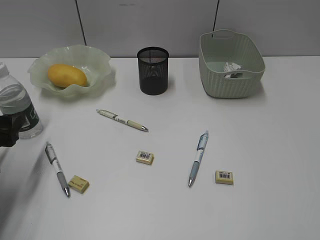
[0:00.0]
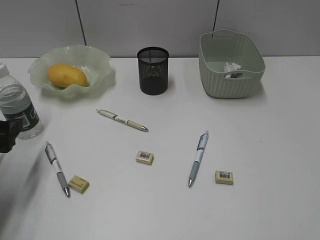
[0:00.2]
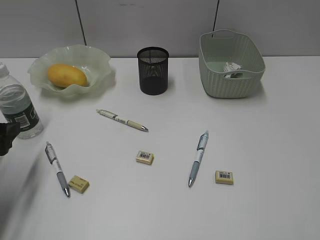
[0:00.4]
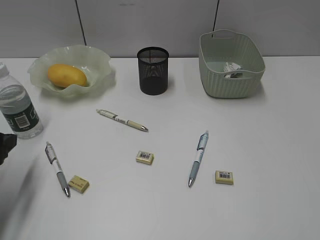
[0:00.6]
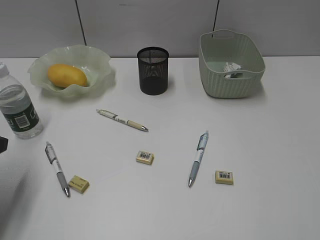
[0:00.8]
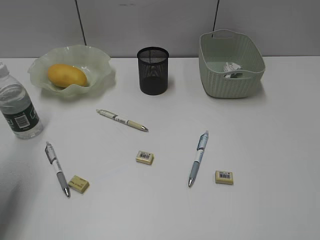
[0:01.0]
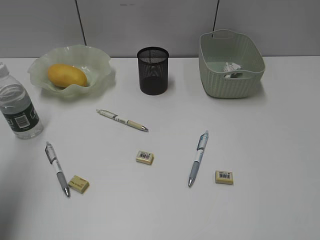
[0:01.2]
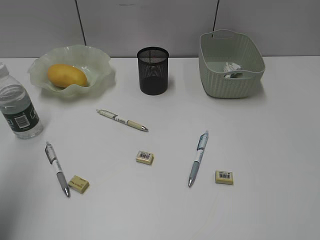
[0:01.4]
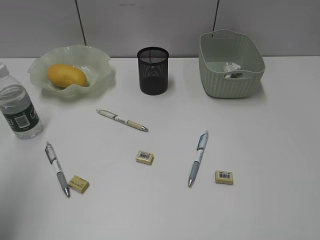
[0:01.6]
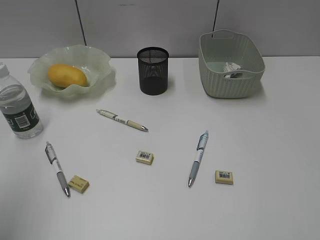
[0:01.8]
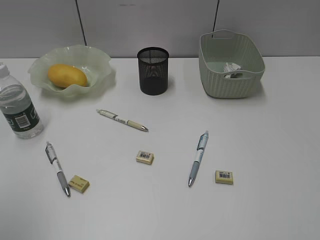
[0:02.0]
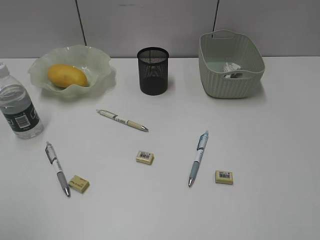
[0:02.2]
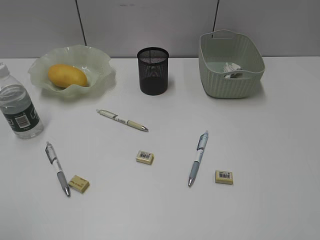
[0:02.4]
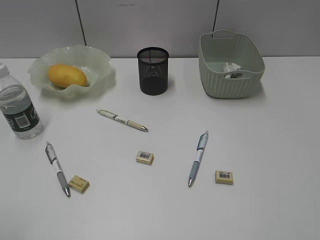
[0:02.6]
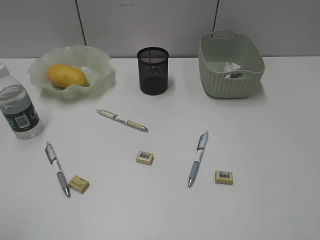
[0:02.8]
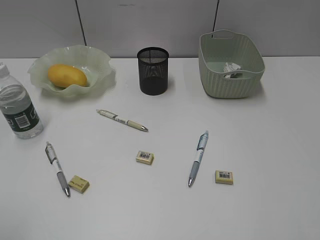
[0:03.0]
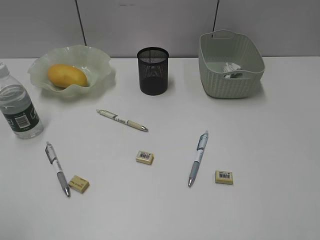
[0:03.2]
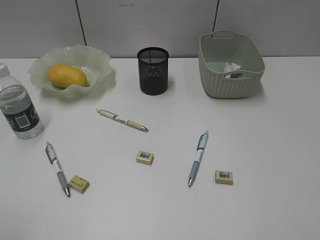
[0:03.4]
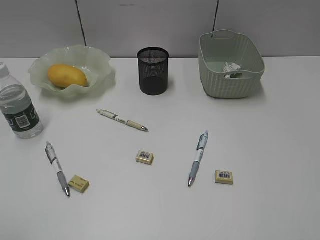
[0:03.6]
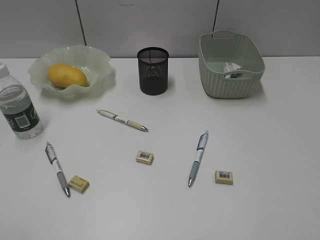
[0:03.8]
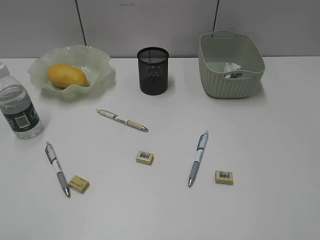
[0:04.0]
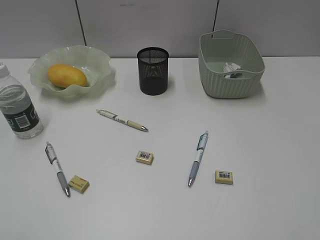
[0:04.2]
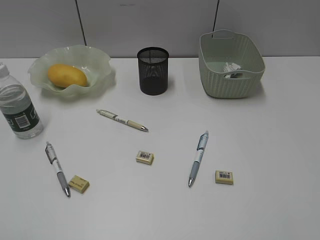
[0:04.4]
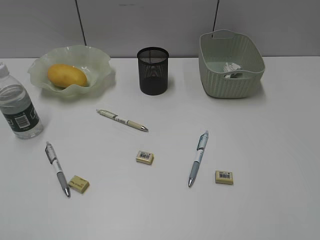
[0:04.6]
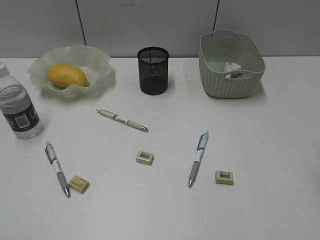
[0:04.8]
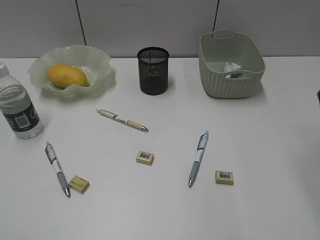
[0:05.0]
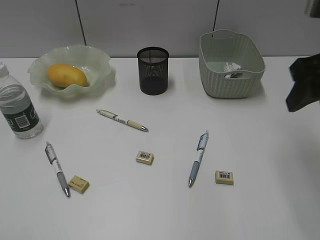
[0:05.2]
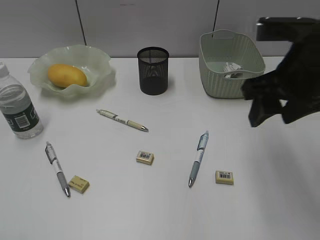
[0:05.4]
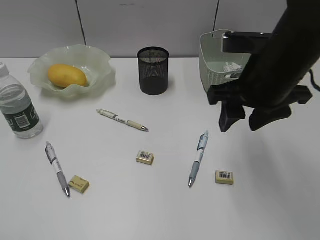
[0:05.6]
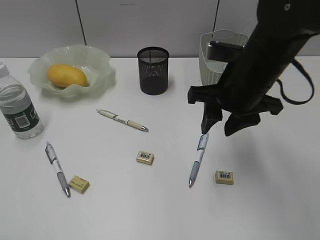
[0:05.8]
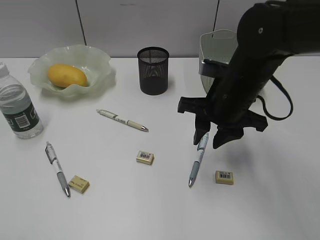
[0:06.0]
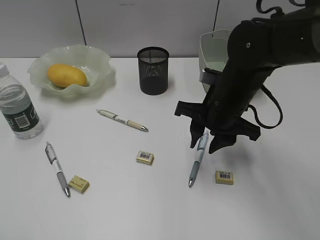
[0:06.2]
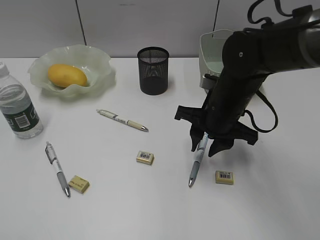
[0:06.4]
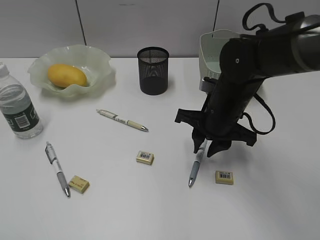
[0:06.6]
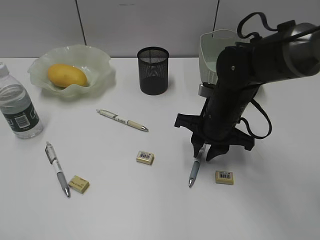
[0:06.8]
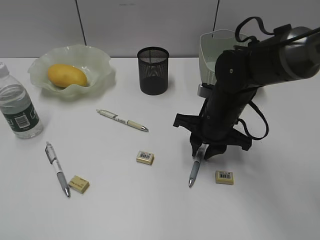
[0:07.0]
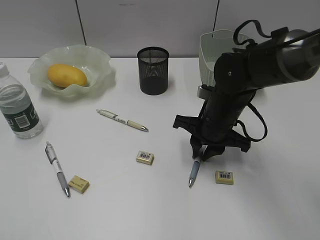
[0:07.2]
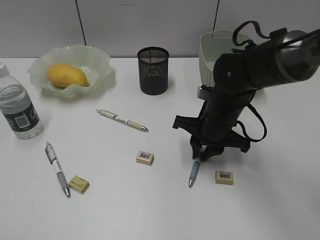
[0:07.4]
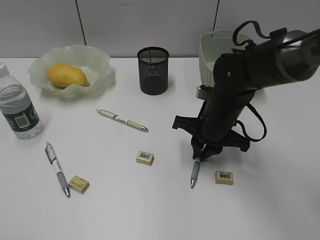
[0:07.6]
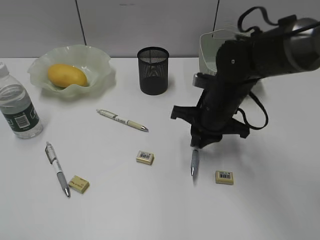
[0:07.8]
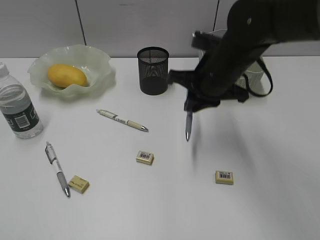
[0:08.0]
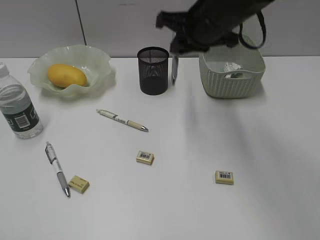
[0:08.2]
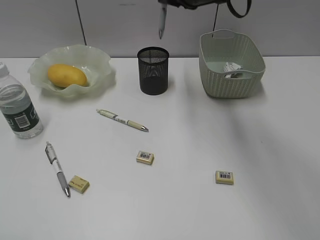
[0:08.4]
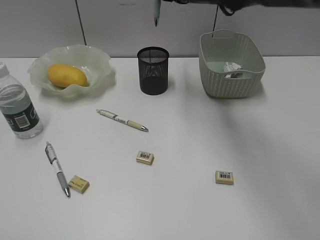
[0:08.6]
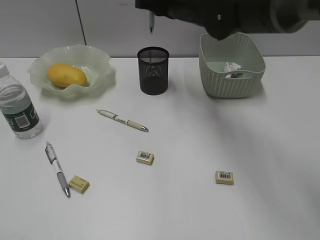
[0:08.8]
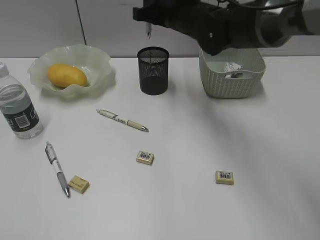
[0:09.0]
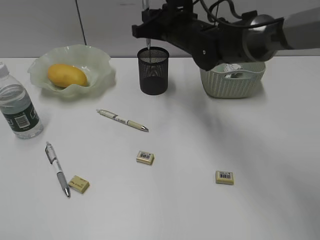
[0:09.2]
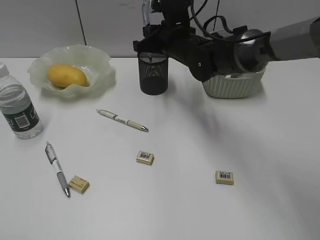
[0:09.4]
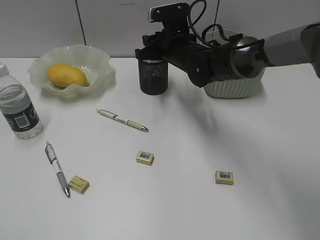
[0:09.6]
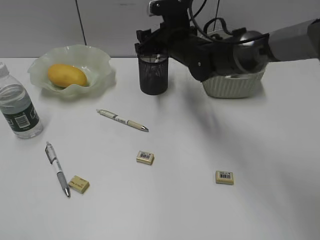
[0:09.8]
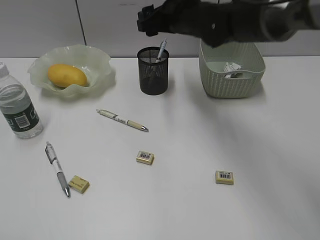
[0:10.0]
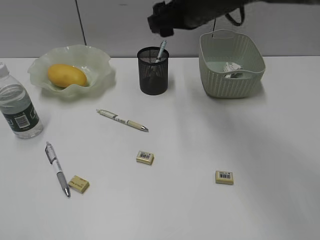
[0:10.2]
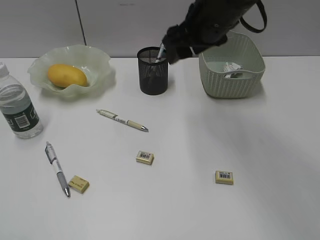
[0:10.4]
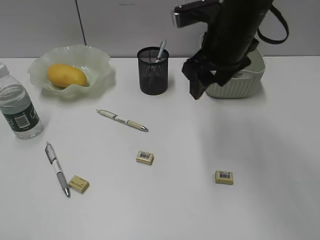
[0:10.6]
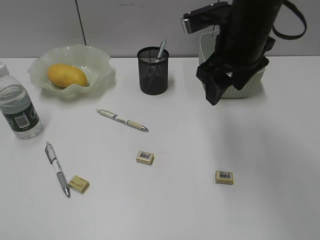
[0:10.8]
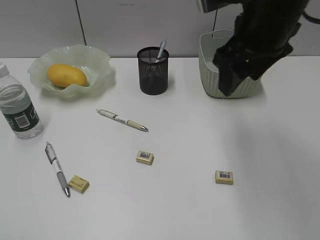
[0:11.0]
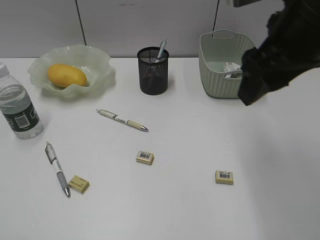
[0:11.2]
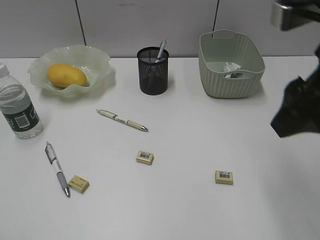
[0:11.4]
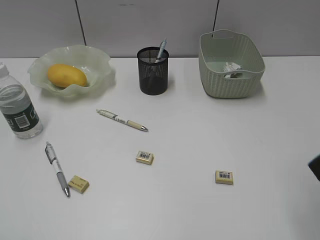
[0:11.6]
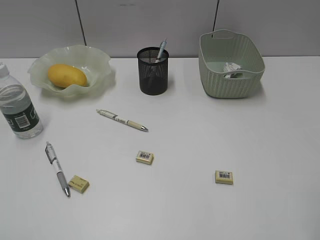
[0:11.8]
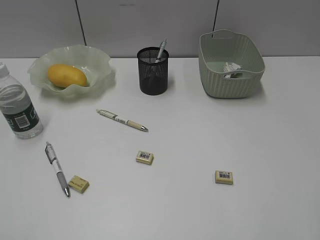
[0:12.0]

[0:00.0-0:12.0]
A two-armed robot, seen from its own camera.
Step, 0:00.2 to 0:07.4: Grasp the blue pen with right gripper.
Step, 0:07.6 to 0:09.8: Place the blue pen in pen holder with right gripper.
0:00.0 to 0:01.6: The left gripper travels upward by approximately 15 cm.
0:01.6 to 0:03.0: The left gripper goes about 15 cm backward.
0:04.4 to 0:06.0: The right gripper goes some 35 cm forward, to the left and downward, and closes its fingers.
0:06.0 to 0:07.6: The right gripper heads downward, covering roughly 10 cm, and closes up.
0:07.6 to 0:09.0: The right gripper shifts about 20 cm upward, forward and to the left.
0:09.0 to 0:10.4: The right gripper goes roughly 5 cm backward, goes downward and returns, roughly 10 cm each way, and opens up.
0:10.4 to 0:12.0: The right gripper shifts approximately 35 cm backward and to the right.

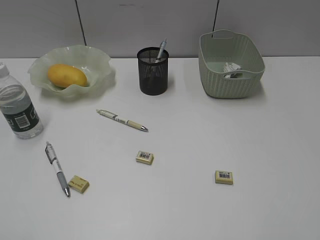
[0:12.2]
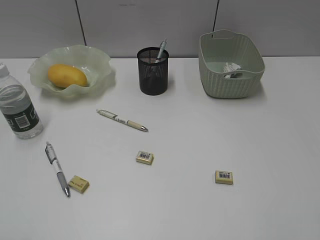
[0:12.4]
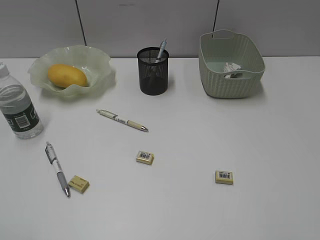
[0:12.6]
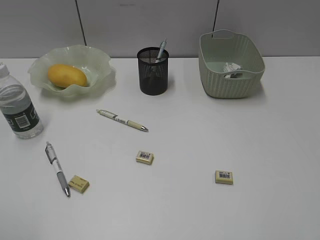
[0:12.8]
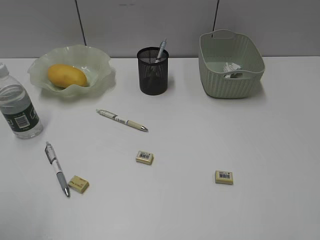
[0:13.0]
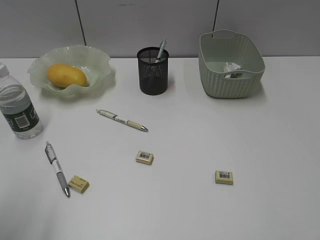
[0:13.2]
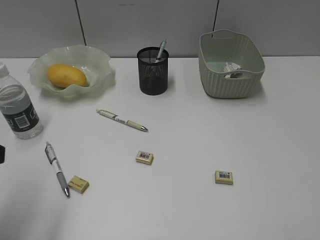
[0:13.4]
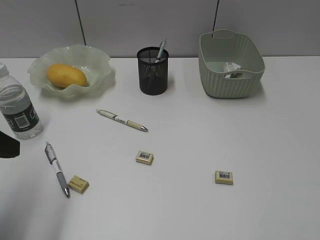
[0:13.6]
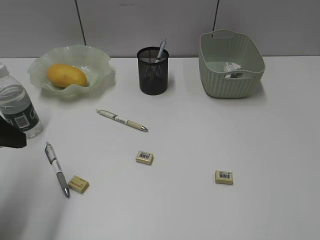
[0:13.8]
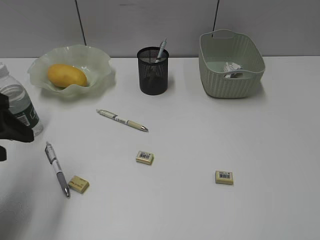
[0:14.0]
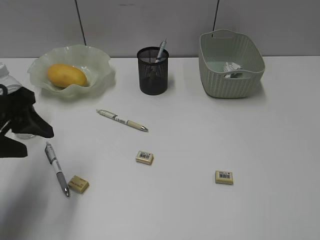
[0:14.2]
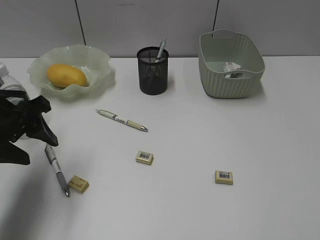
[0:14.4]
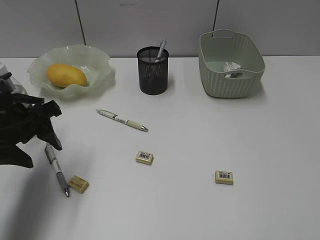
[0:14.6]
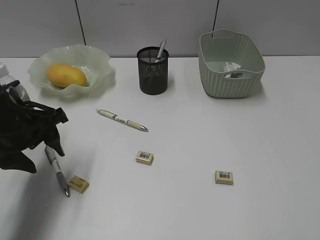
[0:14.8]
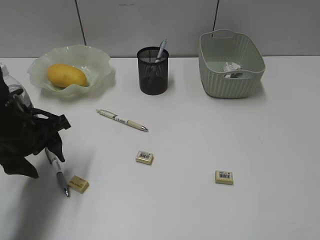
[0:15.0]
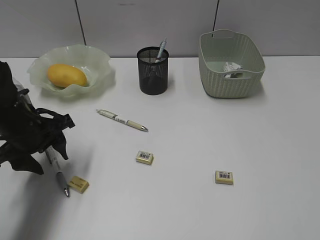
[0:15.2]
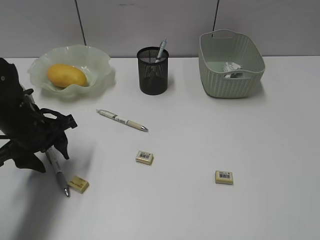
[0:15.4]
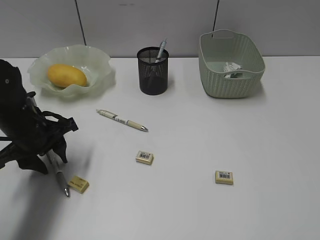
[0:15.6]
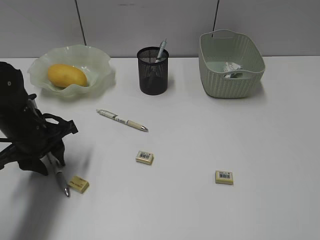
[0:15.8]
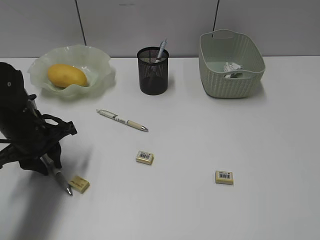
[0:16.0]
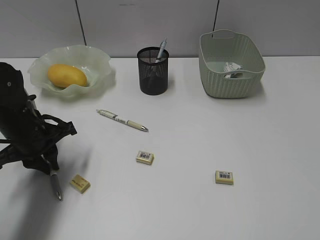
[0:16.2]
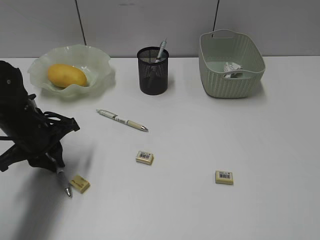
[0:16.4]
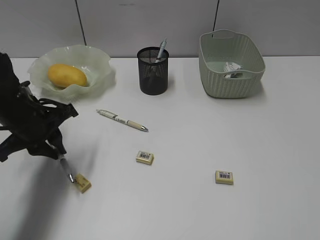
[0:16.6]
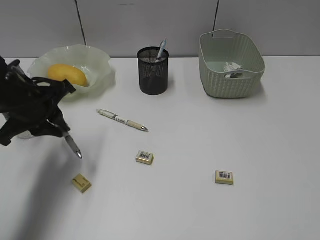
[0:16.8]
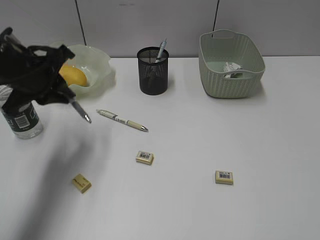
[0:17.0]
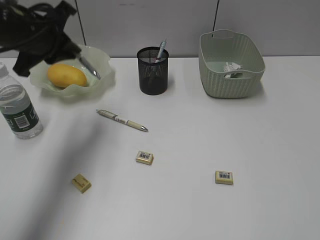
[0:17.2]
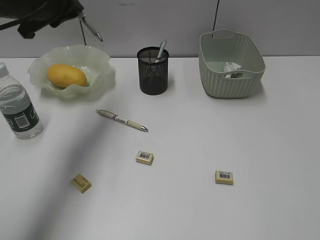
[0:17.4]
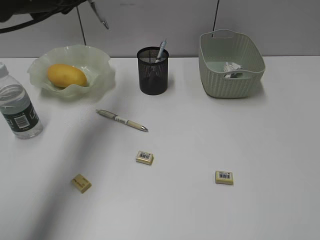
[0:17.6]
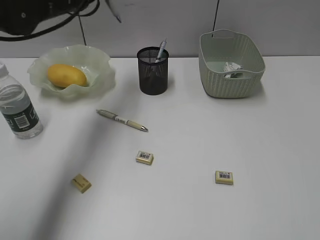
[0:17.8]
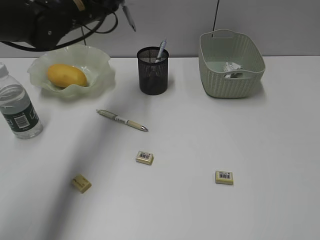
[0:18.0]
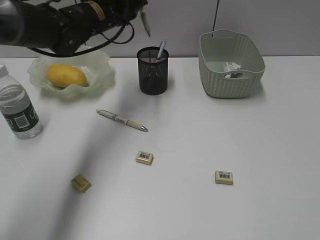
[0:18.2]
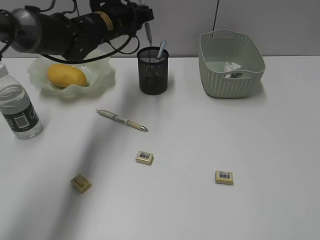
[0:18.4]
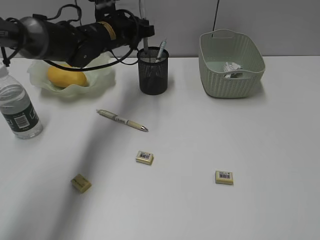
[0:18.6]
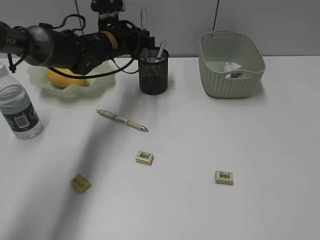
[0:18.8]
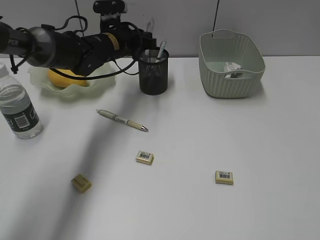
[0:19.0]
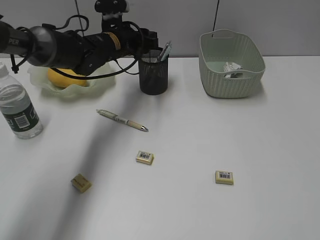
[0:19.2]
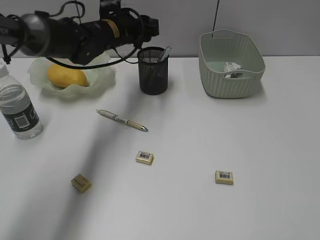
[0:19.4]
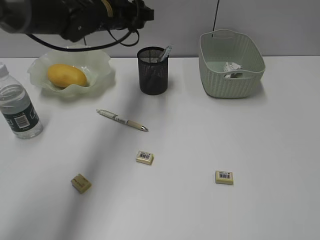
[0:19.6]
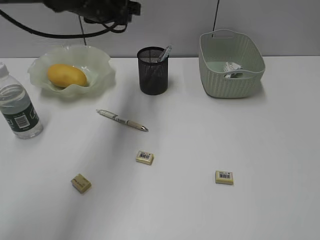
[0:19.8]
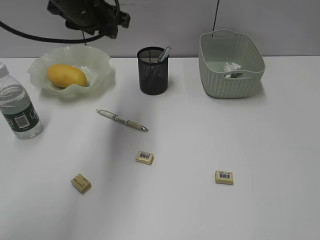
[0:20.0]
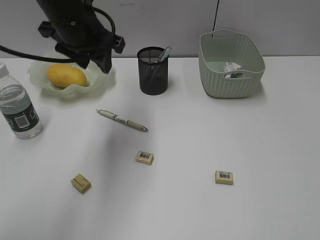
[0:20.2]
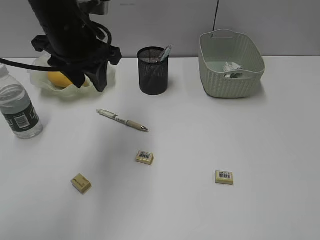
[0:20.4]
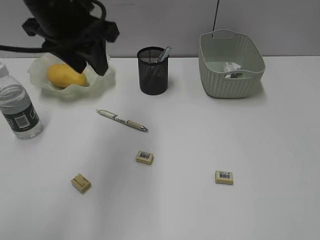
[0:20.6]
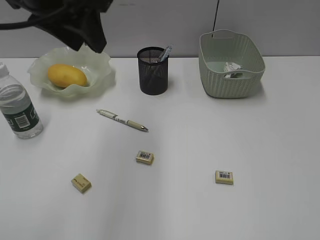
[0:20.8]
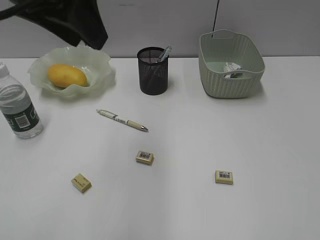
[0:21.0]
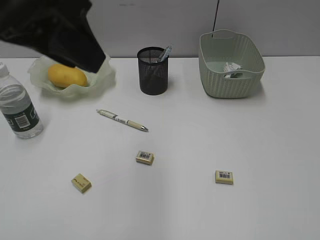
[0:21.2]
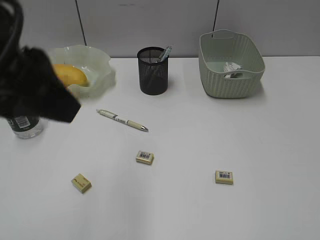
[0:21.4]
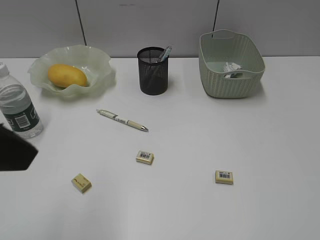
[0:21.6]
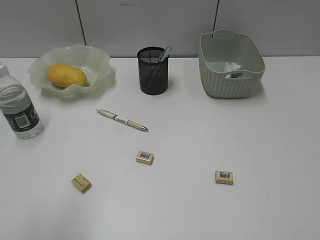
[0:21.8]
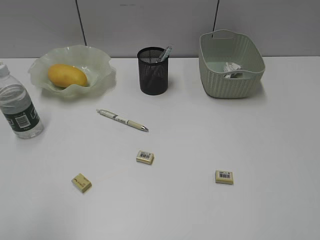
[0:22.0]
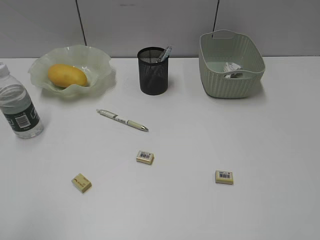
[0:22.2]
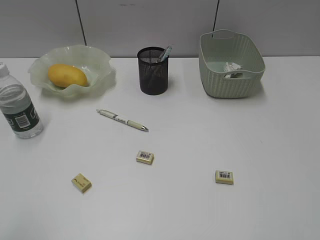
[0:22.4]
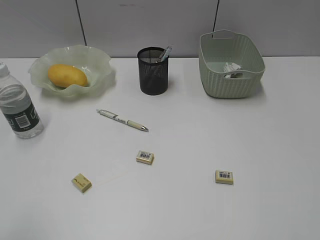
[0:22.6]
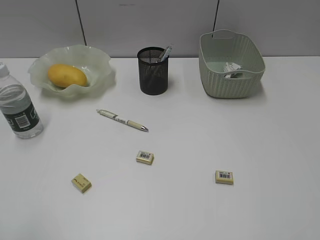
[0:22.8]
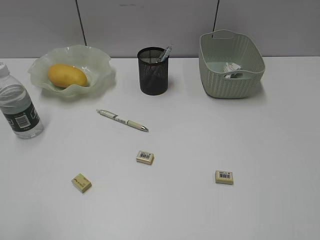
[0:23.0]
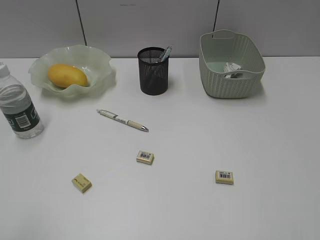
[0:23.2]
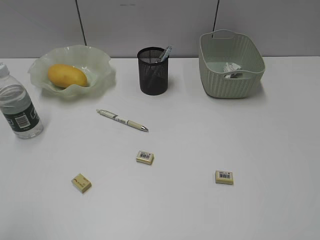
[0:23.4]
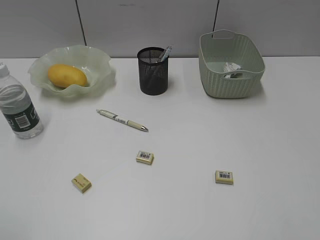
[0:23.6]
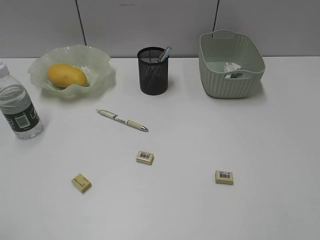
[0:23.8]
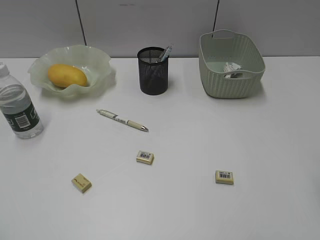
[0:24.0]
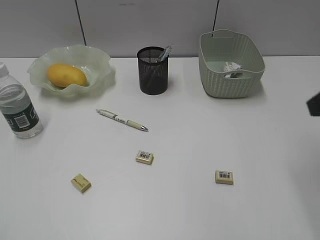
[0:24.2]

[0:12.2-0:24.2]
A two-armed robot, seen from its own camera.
Step, 0:12.2 to 0:16.2: Grasp the gray pen with left gripper.
Step, 0:16.4 to 0:19.2: Place the gray pen in pen holder with left gripper.
0:12.2 to 0:13.8: The left gripper travels forward by about 20 cm.
0:13.8 to 0:15.2: The left gripper moves forward, downward and to the right, some 15 cm.
0:15.2 to 0:16.6: The left gripper closes up.
0:16.6 to 0:18.2: The left gripper shifts some 20 cm forward, to the right and upward.
0:18.2 to 0:19.8: The left gripper goes downward and returns, roughly 5 cm each way, and opens its fingers.
0:19.8 to 0:21.2: The left gripper travels backward and upward by approximately 25 cm.
0:21.2 to 0:22.6: The left gripper travels to the left, backward and downward by some 25 cm.
